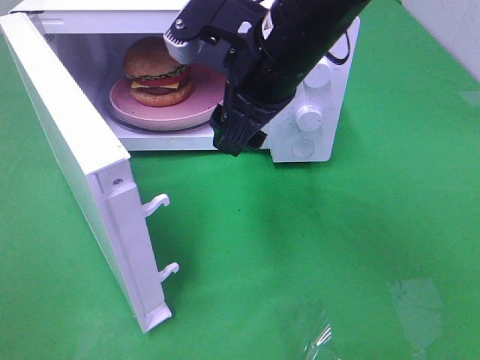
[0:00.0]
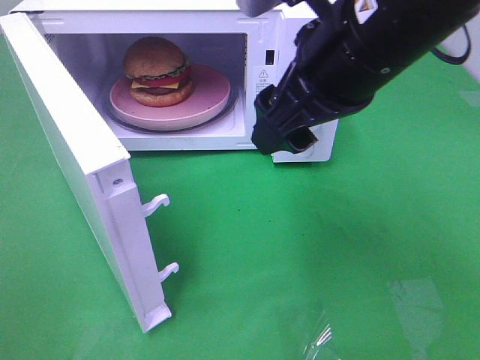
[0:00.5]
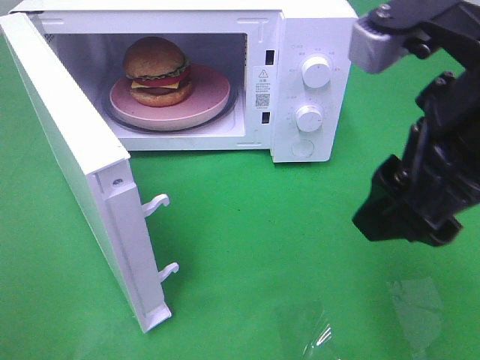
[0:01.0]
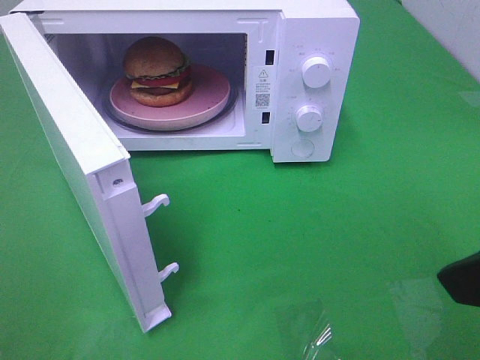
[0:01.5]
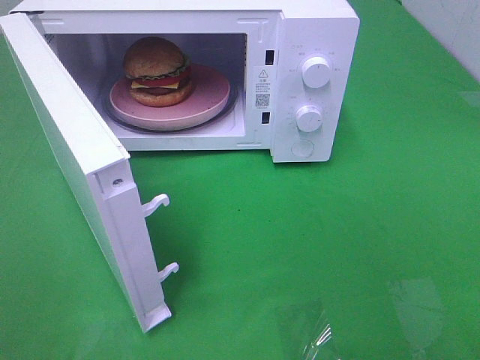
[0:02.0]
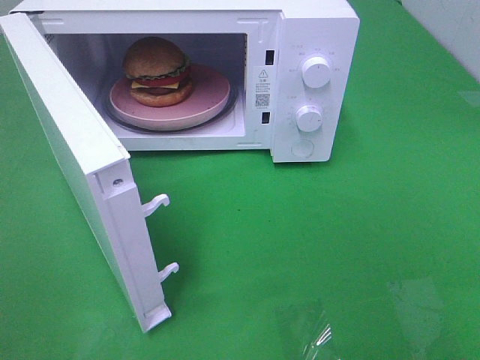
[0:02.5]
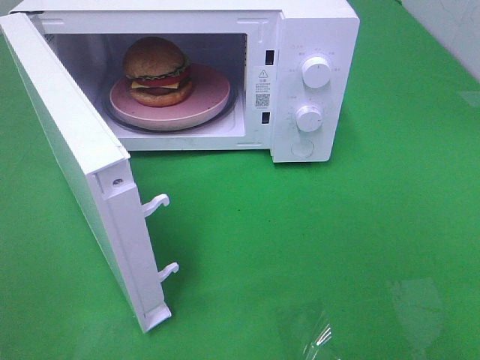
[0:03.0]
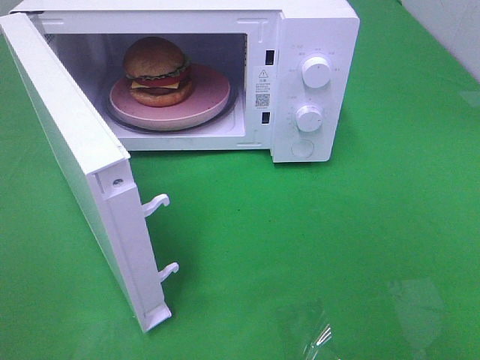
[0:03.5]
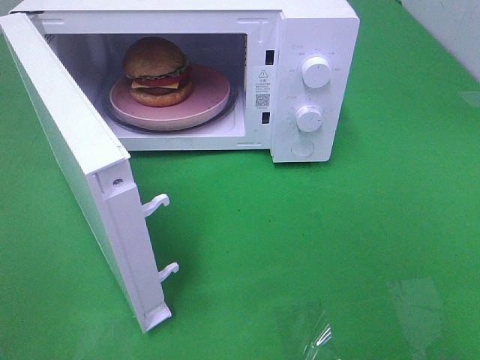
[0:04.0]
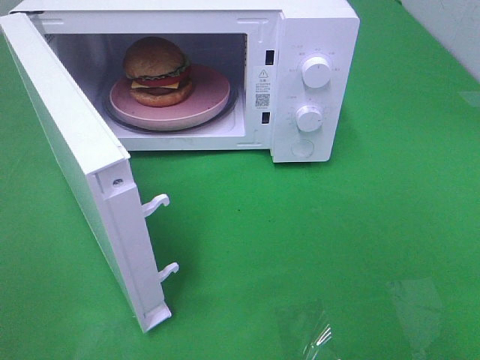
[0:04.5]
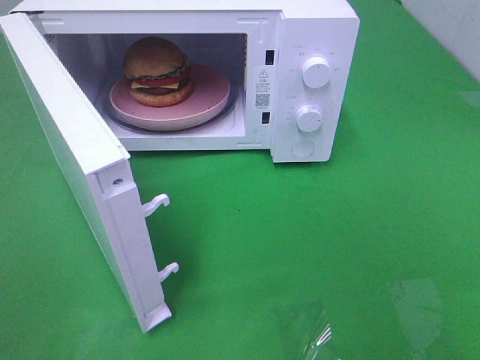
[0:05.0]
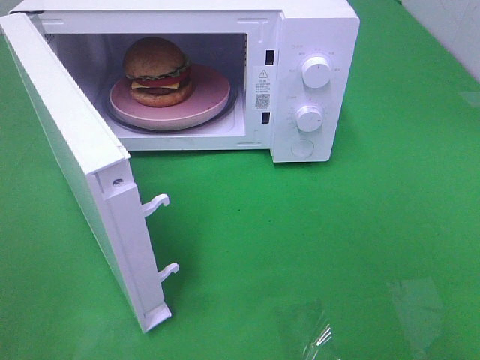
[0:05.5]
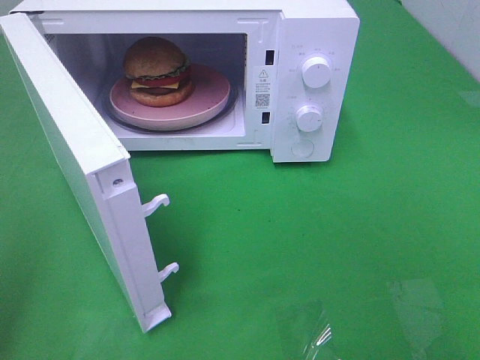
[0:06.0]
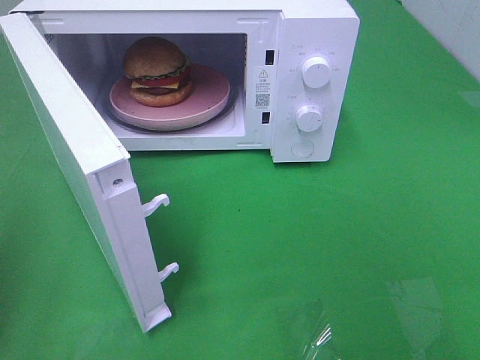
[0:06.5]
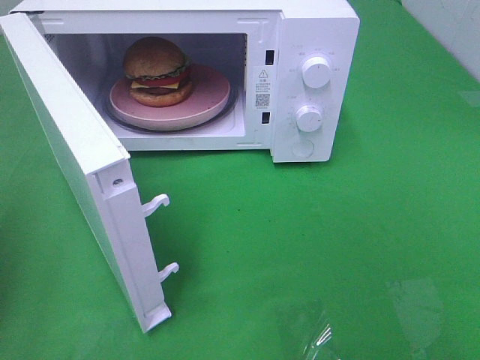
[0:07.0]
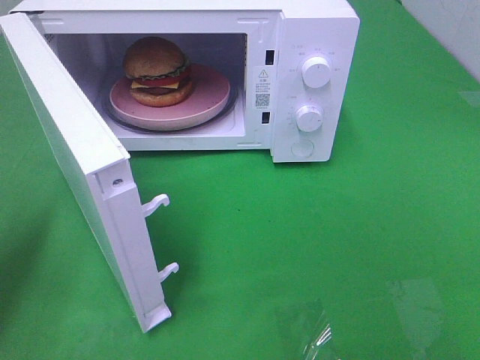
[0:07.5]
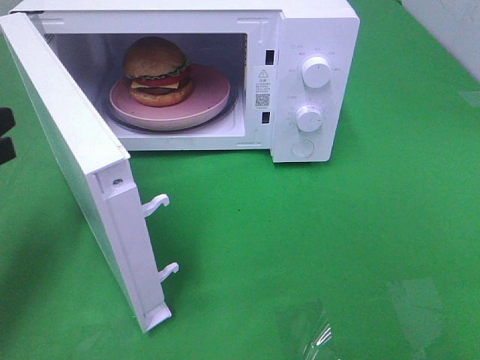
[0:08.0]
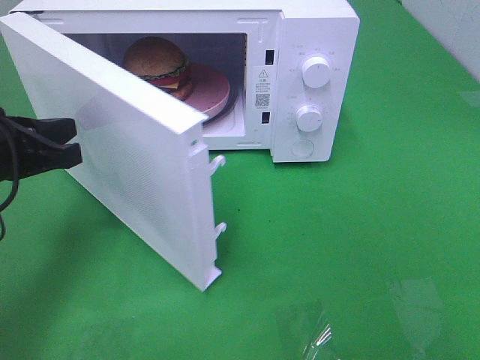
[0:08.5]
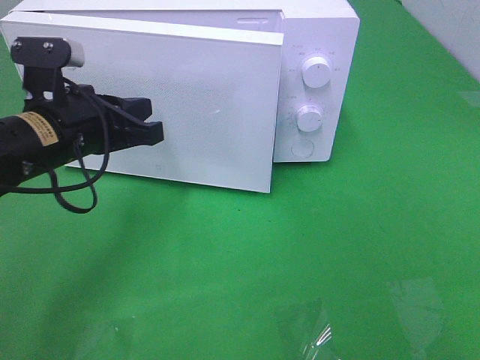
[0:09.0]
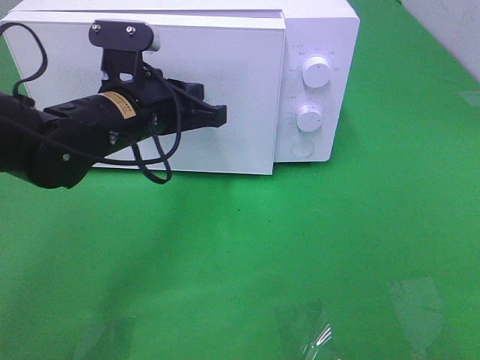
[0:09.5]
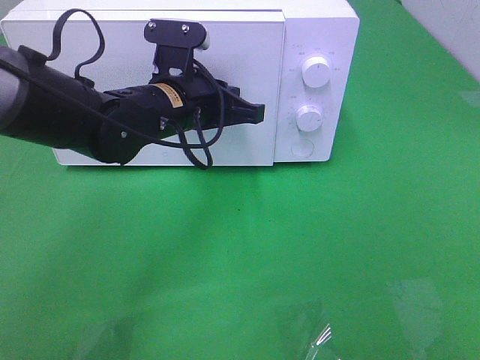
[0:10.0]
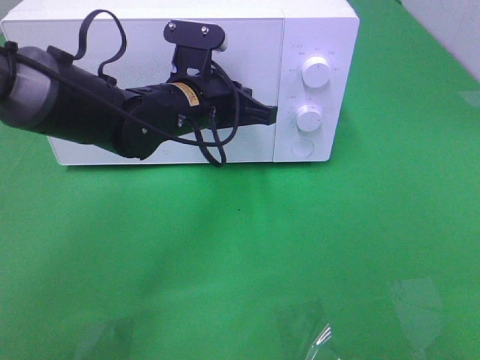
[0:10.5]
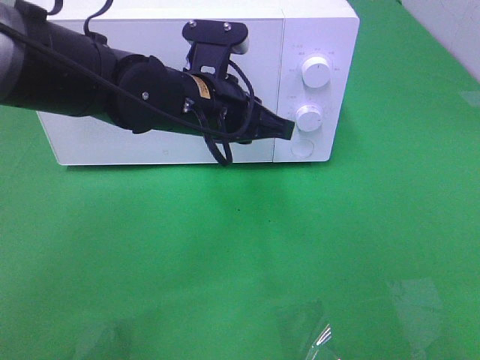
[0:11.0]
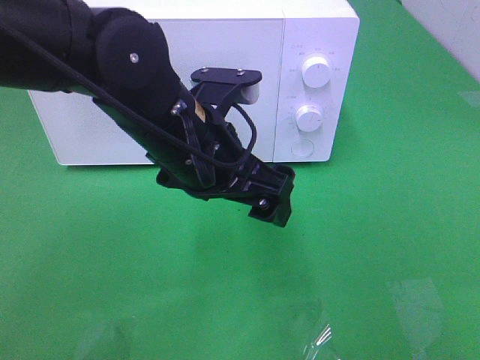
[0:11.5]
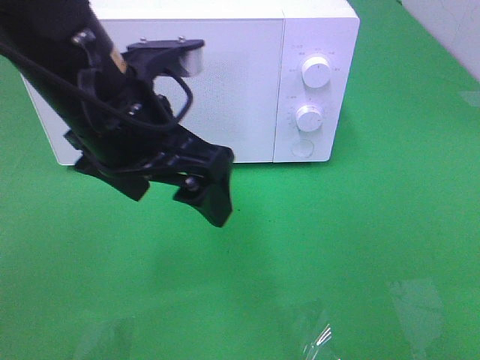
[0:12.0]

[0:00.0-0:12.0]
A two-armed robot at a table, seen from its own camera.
Task of the whole recording: Heat the burger.
Step, 0:00.0 to 0:11.0: Left hand: close the microwave door.
0:00.0 to 0:02.0: The right gripper is displaced backward and to the right by some 30 cm.
0:06.0 to 0:08.0: The left gripper moves forward and downward, roughly 20 cm.
0:08.0 to 0:10.0: The left gripper heads to the right and forward, covering about 25 cm.
0:10.0 to 0:12.0: The left gripper shifts some 15 cm backward and upward, and opens its fingers.

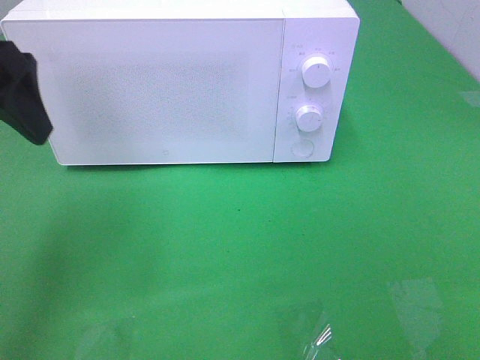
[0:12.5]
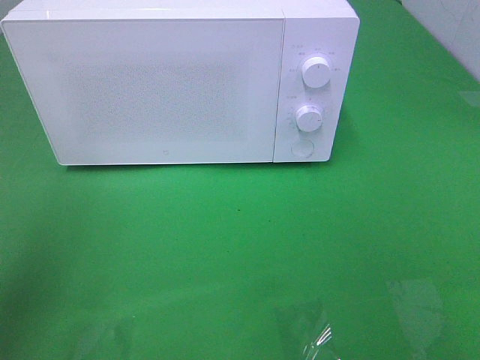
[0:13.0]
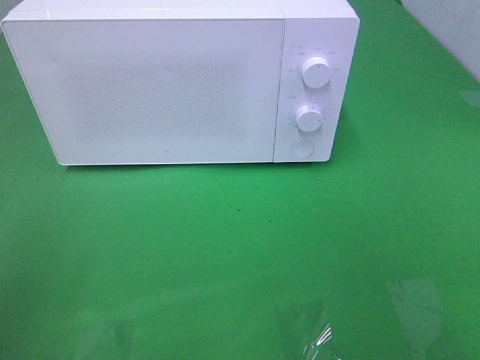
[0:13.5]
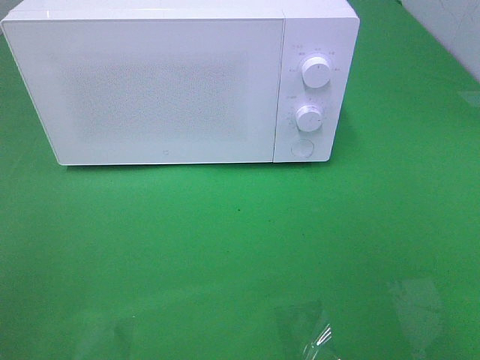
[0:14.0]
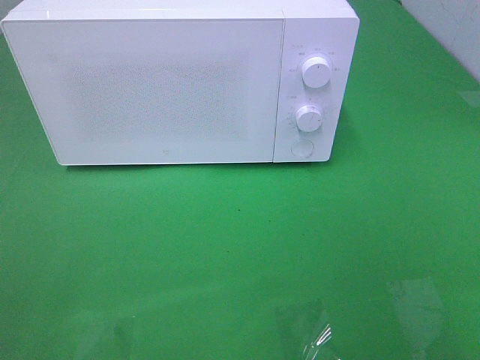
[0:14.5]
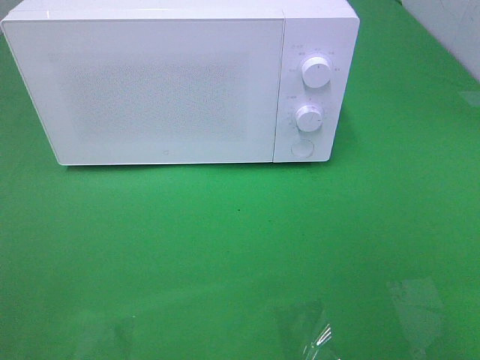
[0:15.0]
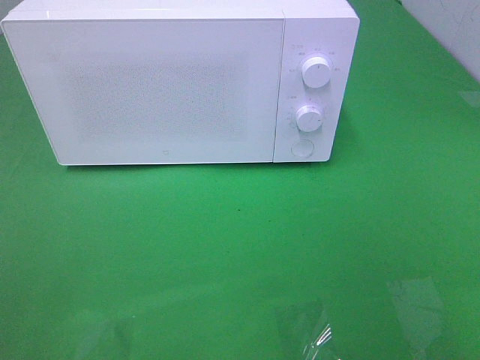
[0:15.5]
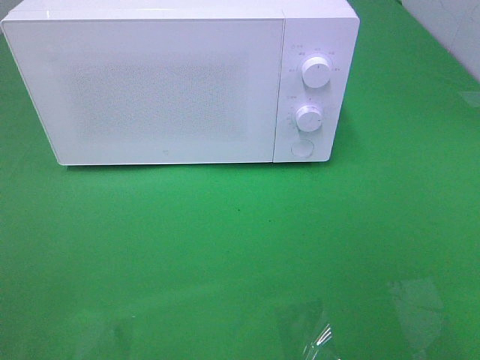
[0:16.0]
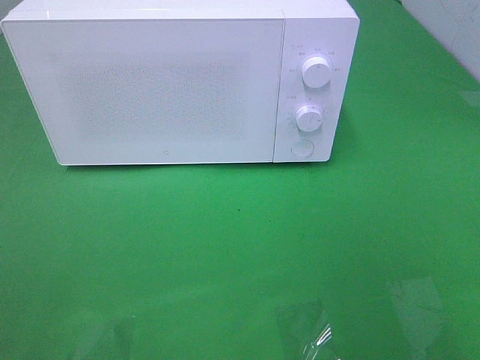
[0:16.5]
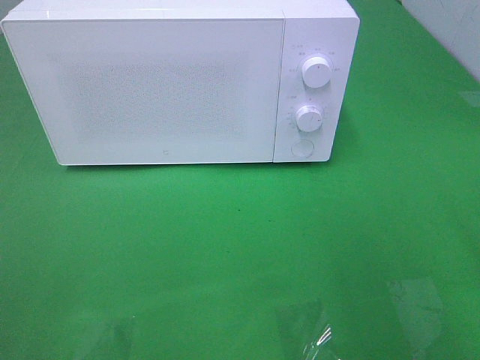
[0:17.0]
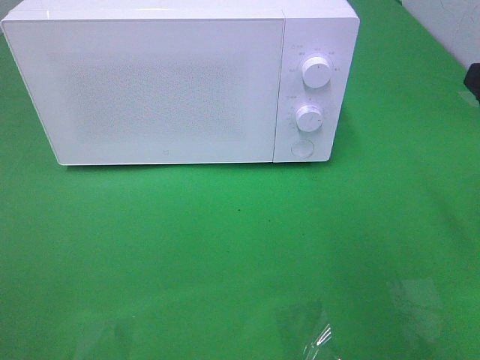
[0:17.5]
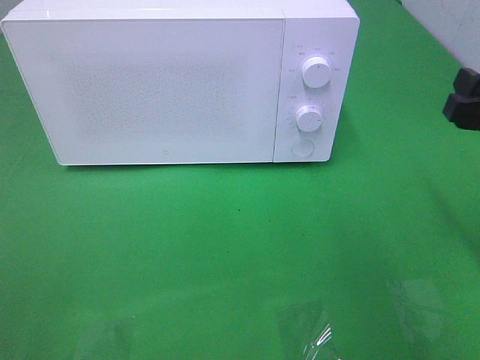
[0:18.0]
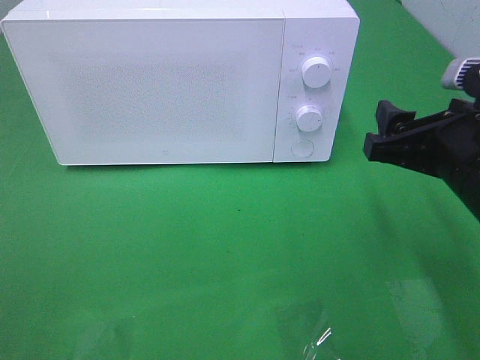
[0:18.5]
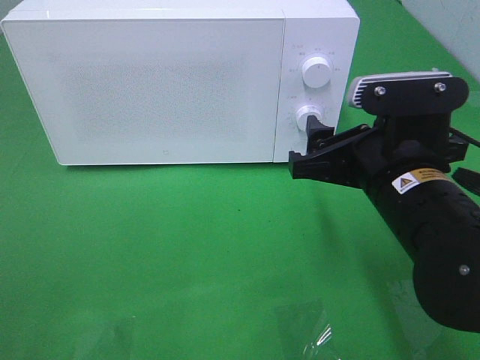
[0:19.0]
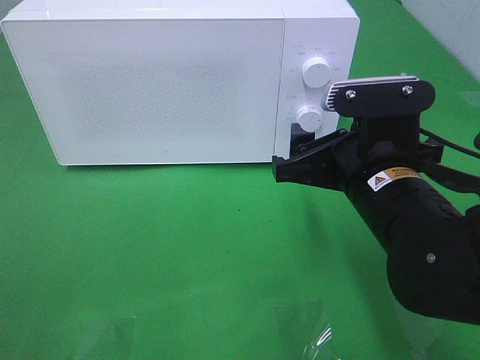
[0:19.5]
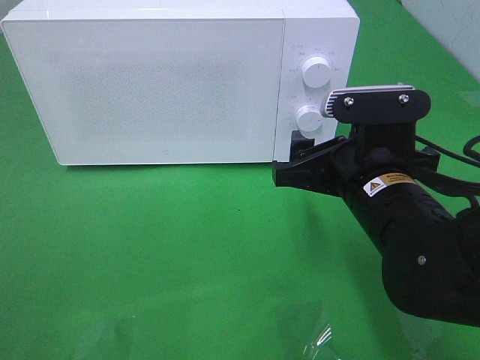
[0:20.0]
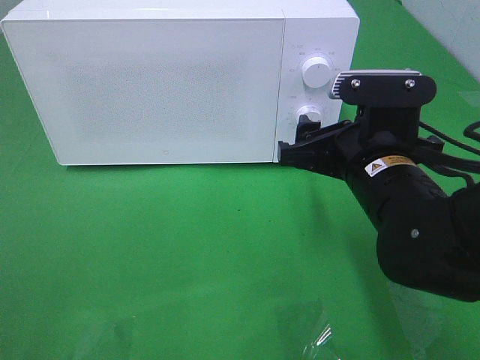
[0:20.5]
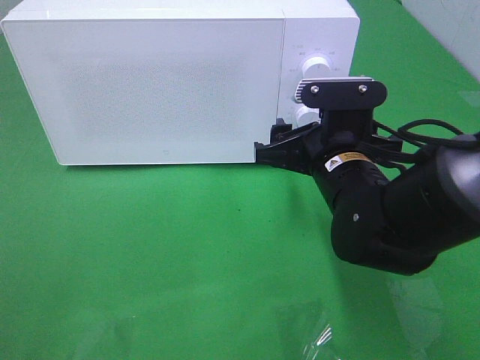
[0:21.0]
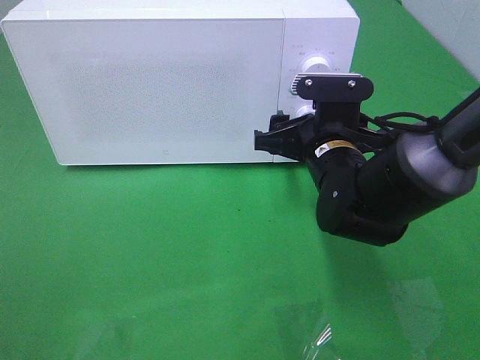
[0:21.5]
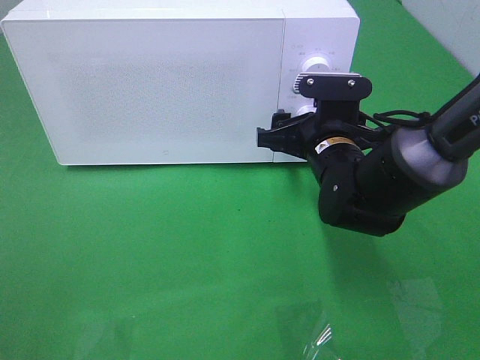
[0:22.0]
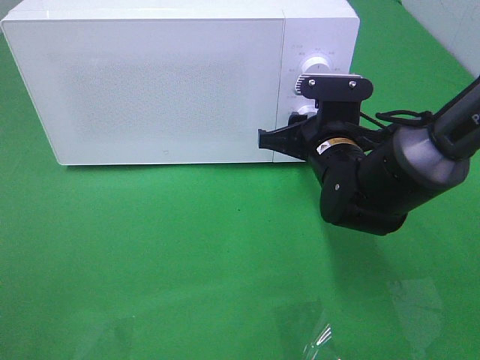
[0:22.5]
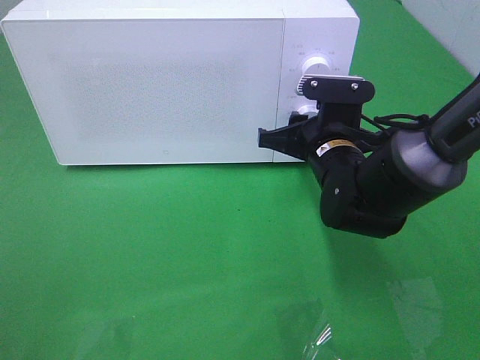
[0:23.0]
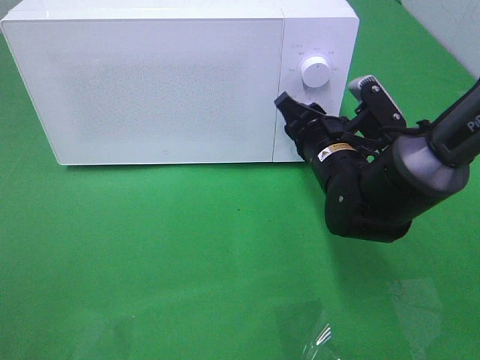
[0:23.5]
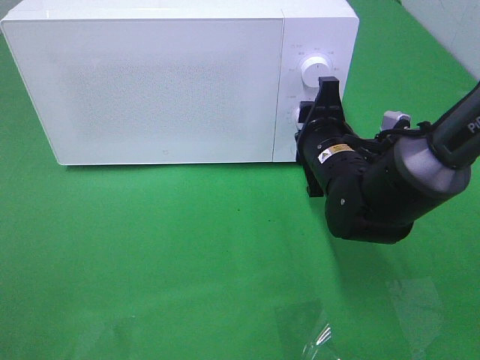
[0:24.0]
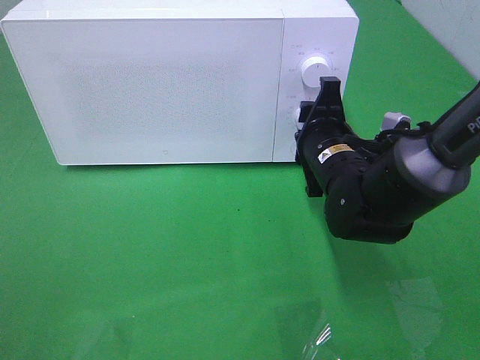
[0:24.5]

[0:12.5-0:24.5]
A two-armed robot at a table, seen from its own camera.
Task of the whole recording: Heat the burger.
0:12.5 to 0:14.5: The left gripper heads backward, covering some 25 cm.
0:16.5 to 0:18.5: The right gripper moves forward, downward and to the left, about 20 cm.
0:18.5 to 0:20.5: The right gripper heads to the left, covering about 5 cm.
0:20.5 to 0:22.5: The right gripper moves forward and downward, some 10 cm, and closes.

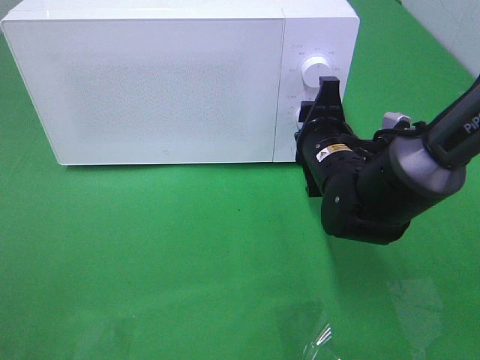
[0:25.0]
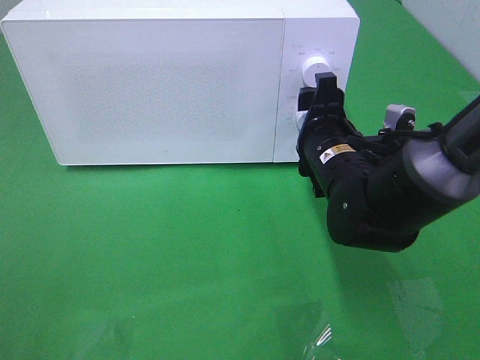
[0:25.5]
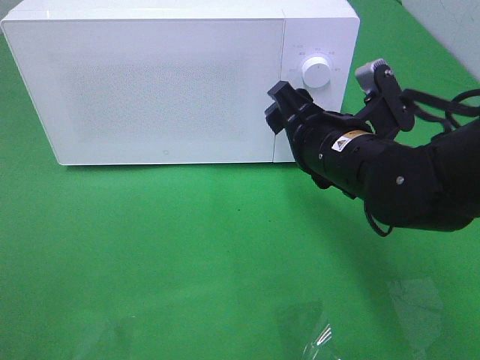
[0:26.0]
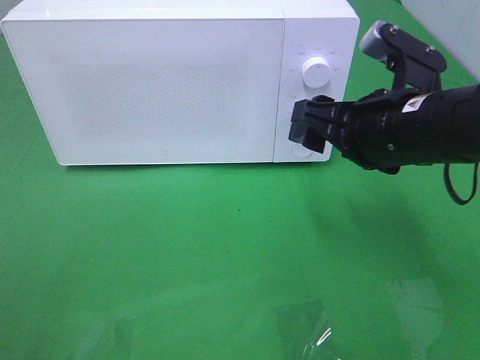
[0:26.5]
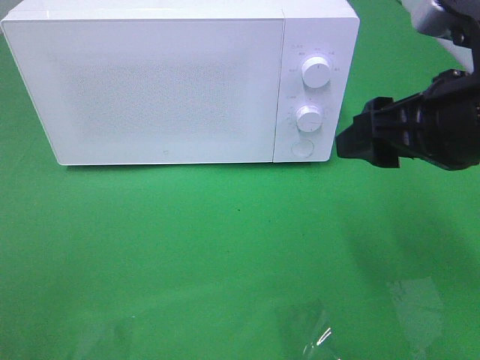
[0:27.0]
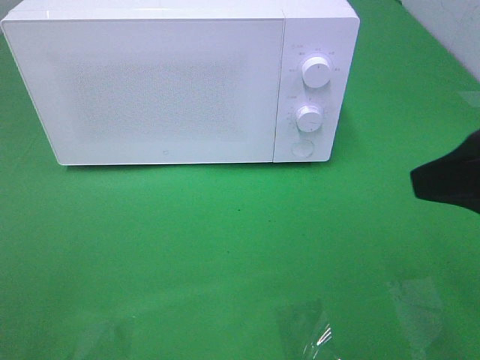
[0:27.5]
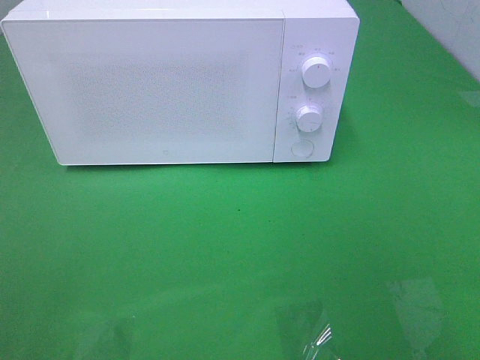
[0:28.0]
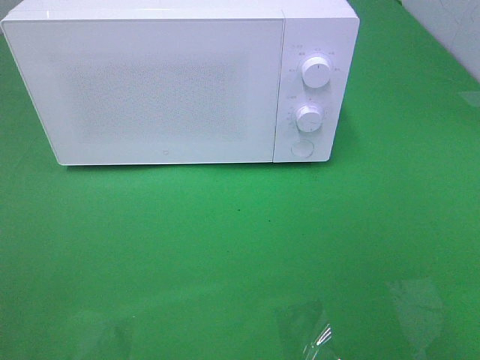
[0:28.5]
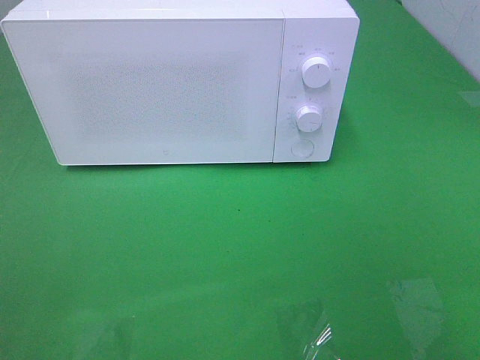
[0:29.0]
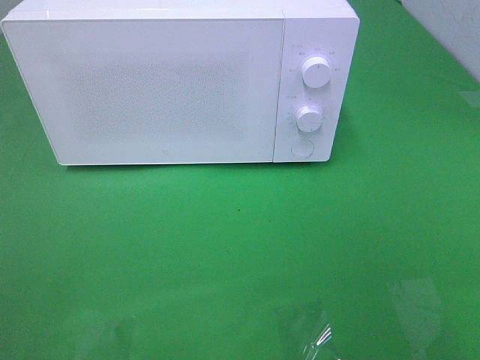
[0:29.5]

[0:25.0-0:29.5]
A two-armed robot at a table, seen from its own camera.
Task of the whole recording: Heat the burger.
0:25.0 to 0:27.0: The right gripper goes about 20 cm upward, backward and to the right.
0:27.0 to 0:29.5: The right gripper shifts some 25 cm backward and to the right.
